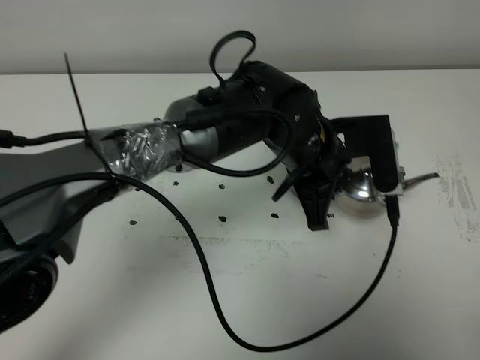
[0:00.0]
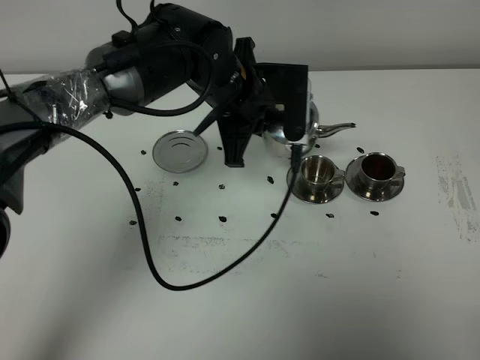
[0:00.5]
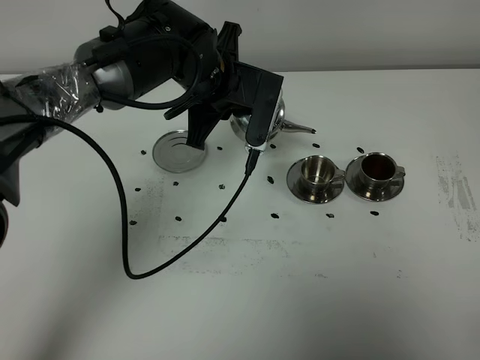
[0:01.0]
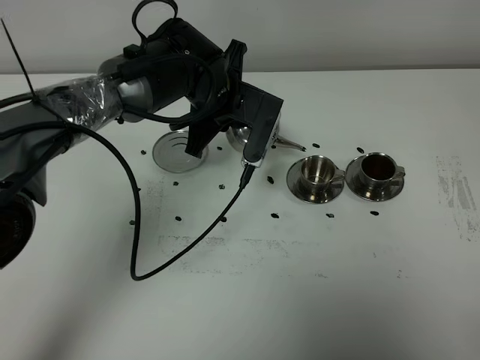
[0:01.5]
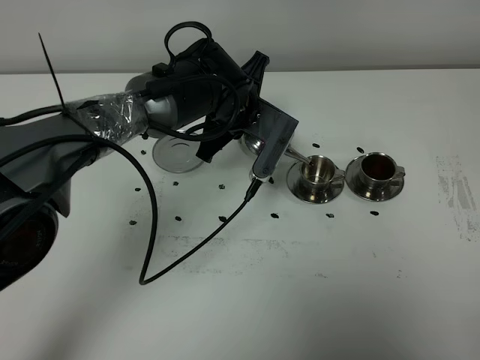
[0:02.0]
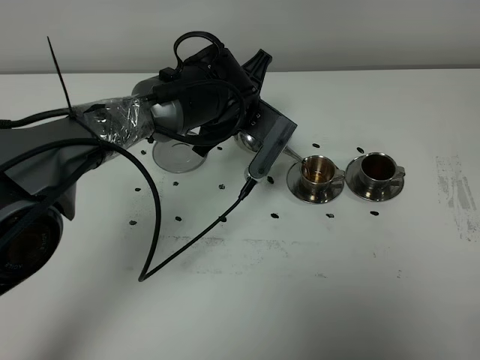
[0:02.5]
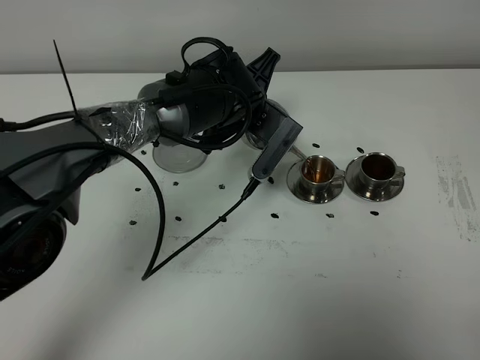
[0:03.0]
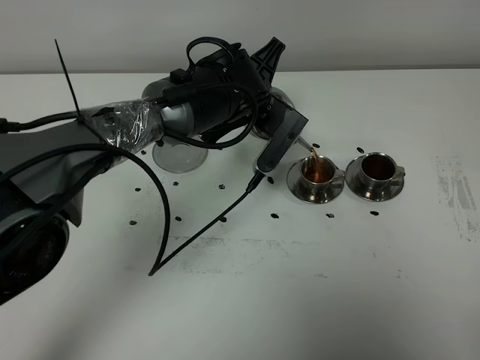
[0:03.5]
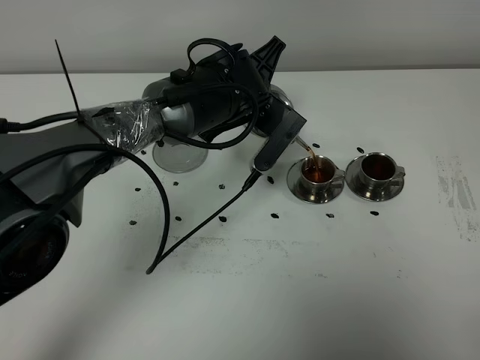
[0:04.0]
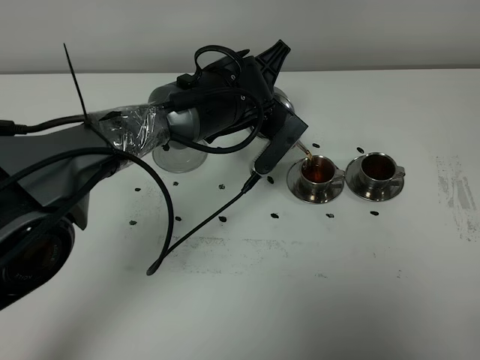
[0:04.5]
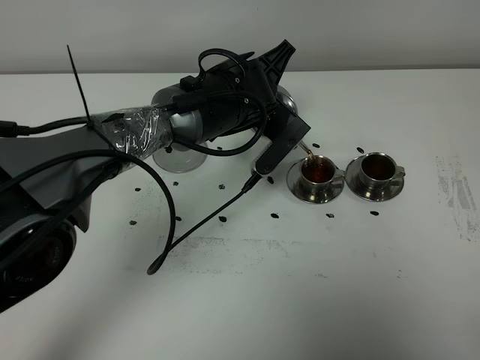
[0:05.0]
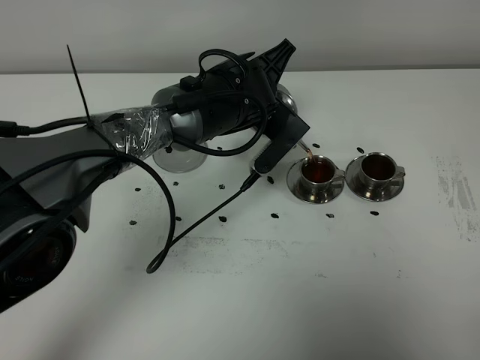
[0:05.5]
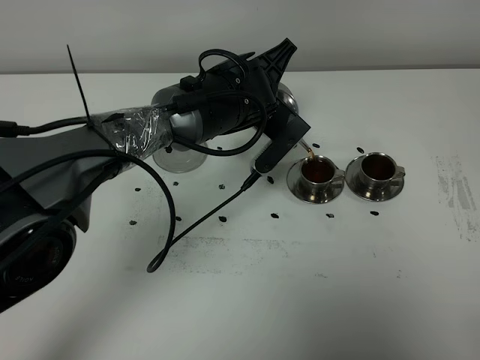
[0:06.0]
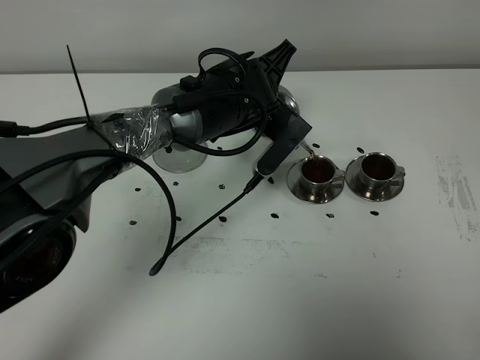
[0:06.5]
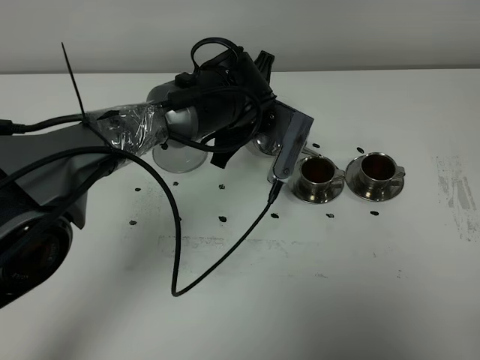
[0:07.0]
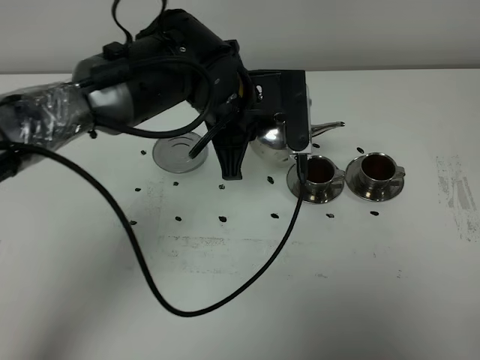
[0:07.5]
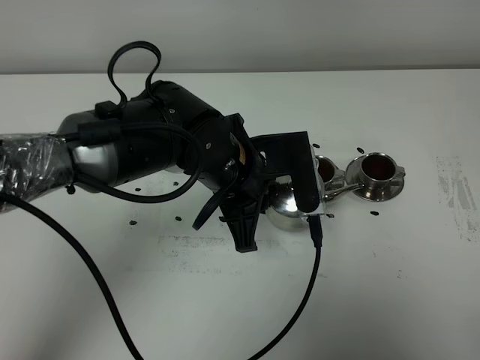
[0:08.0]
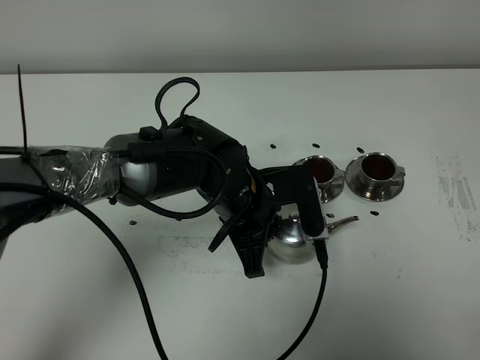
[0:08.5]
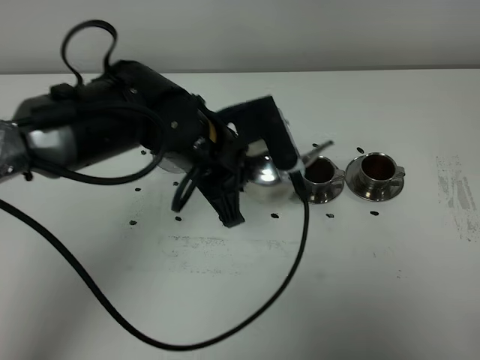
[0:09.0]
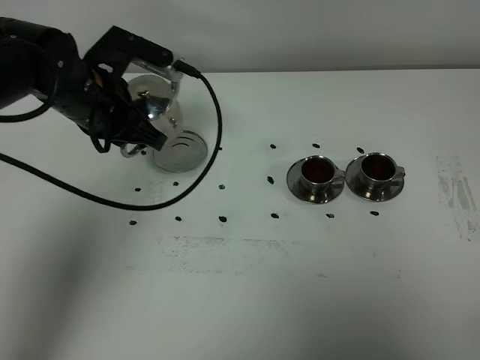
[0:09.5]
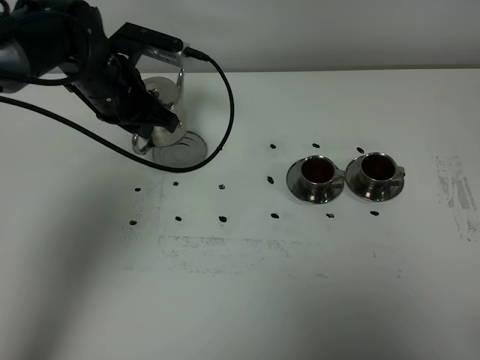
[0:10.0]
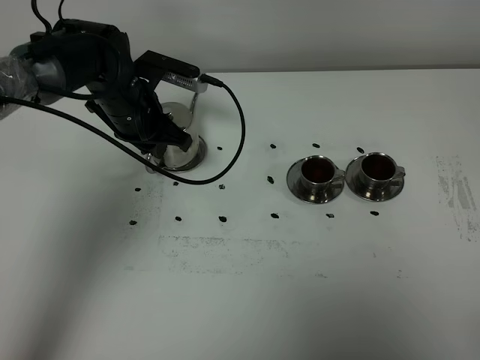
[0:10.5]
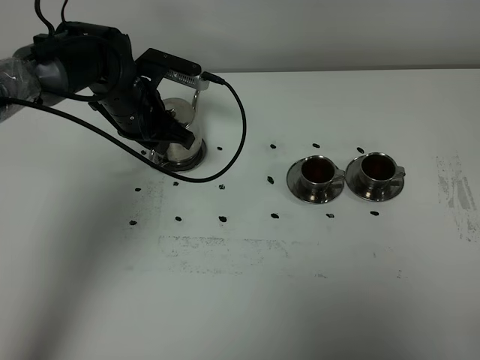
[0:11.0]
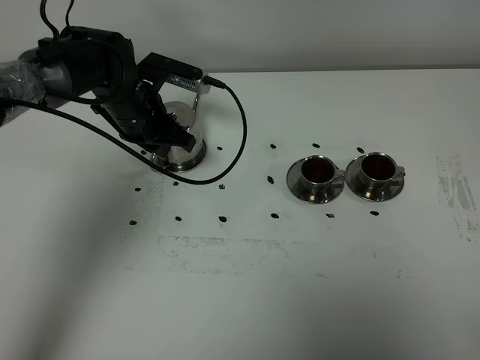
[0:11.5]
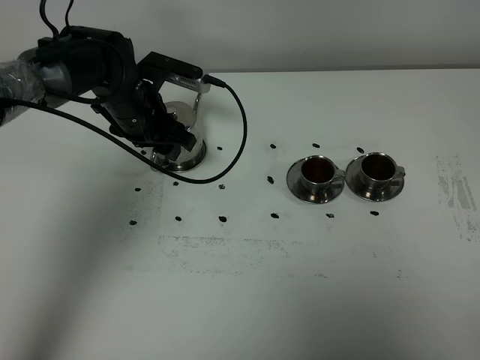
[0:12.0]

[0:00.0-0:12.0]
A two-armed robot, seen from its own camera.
Task of the whole recording: grasp the stainless steel teapot and pour the tea into the two stainless steel teacups one by one, put the stainless steel teapot back in its original place.
Step, 0:00.0 to 0:07.0: Pour tea into the teacup with the left gripper.
0:00.0 to 0:02.0: The left gripper is displaced forward and to the left by some 10 cm.
0:02.0 to 0:06.0: The grippers move only a little.
0:06.0 to 0:08.0: The left gripper moves backward, approximately 10 cm.
0:08.0 to 0:10.0: The left gripper heads to the left and forward, covering approximately 20 cm.
0:10.0 to 0:12.0: The left gripper moves approximately 5 cm, and opens up.

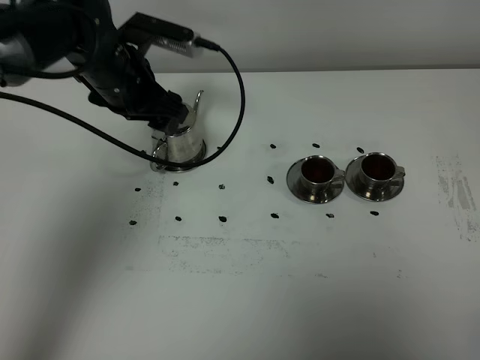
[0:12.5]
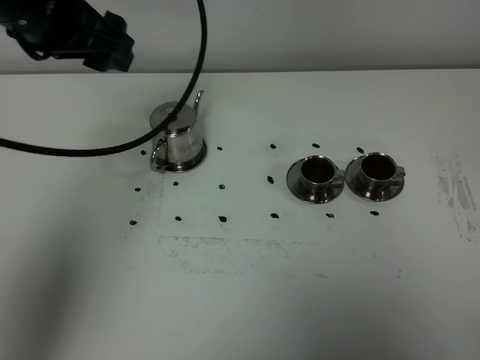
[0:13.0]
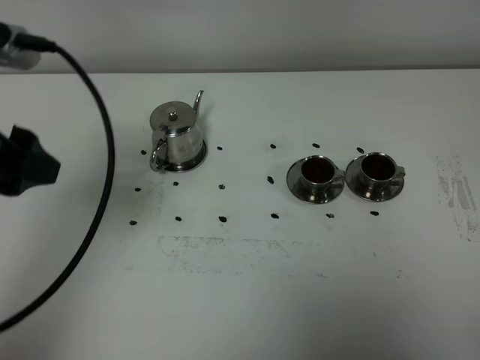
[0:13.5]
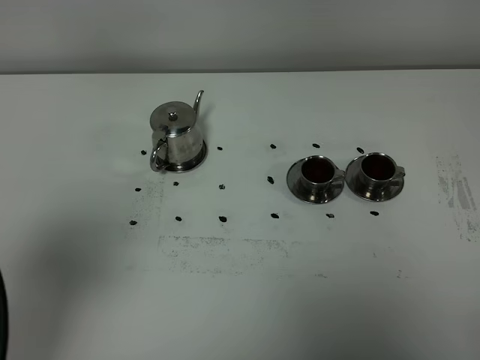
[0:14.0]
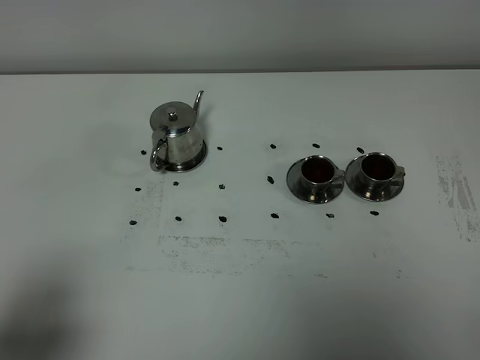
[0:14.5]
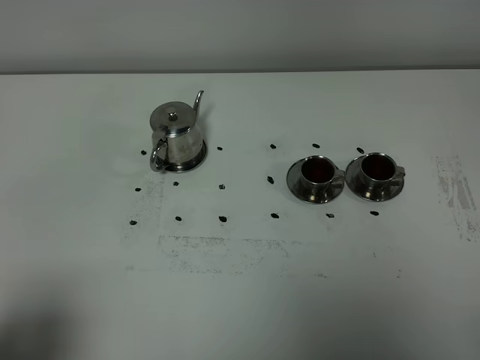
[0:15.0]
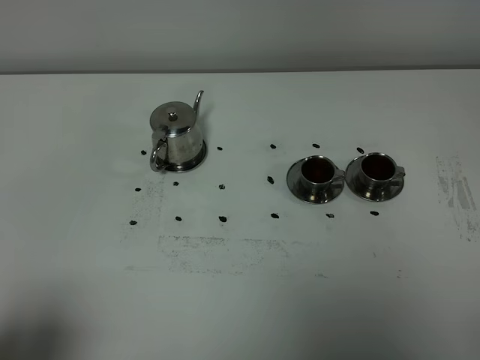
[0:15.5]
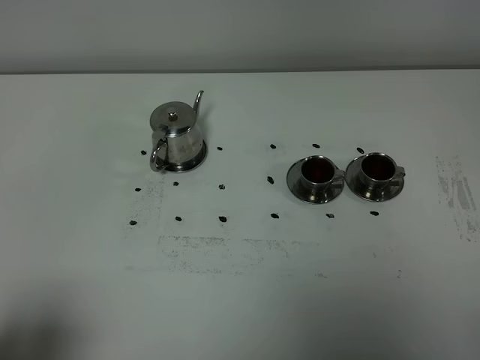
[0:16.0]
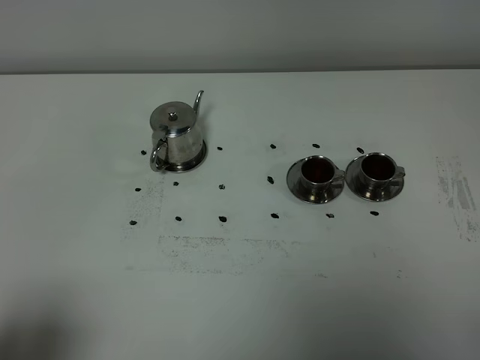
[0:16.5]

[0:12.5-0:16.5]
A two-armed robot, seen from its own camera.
Task of the whole recording: grasp the stainless steel teapot and pour the tea into the two stainless steel teacups one by one, put the stainless steel teapot back in its original place.
0:12.5 to 0:14.5: The left gripper is displaced backward by some 40 cm.

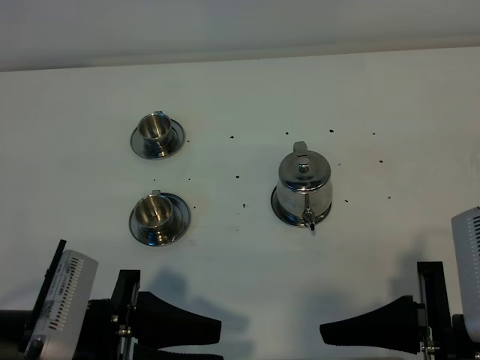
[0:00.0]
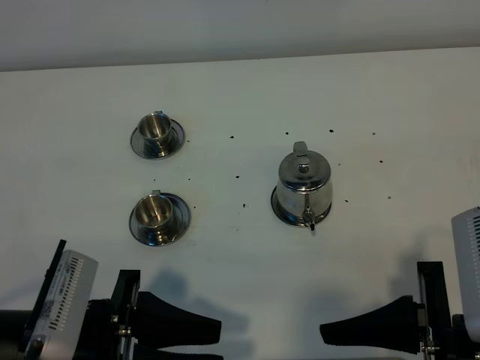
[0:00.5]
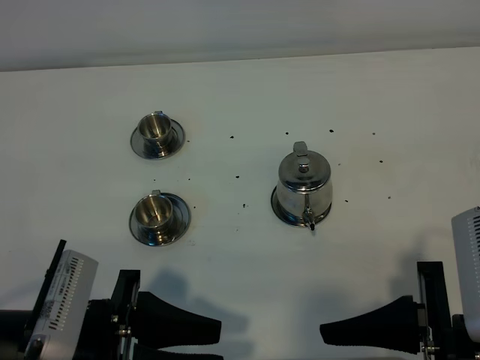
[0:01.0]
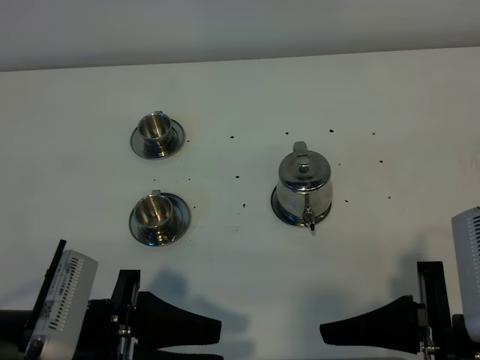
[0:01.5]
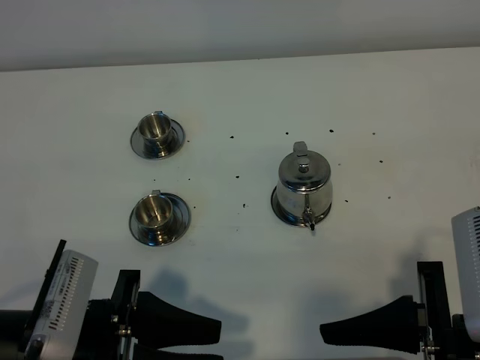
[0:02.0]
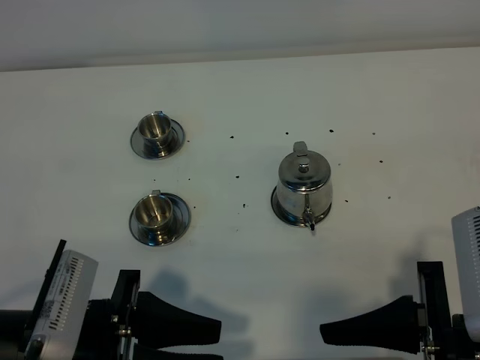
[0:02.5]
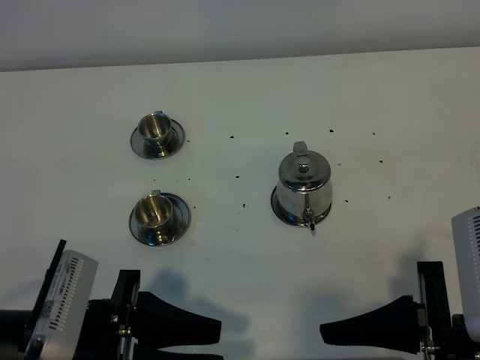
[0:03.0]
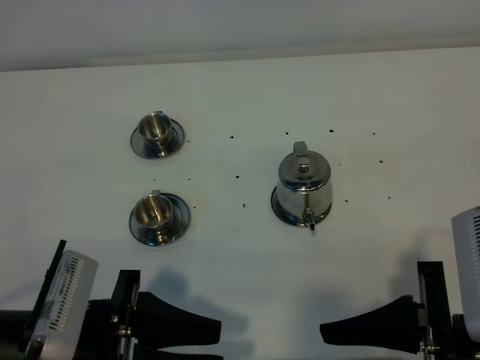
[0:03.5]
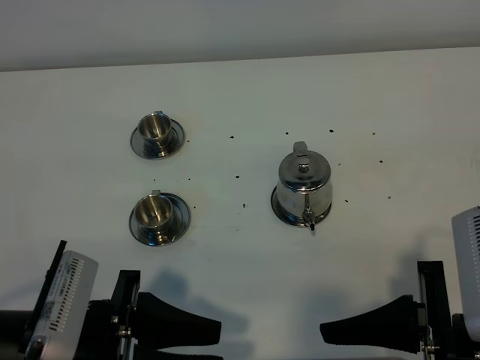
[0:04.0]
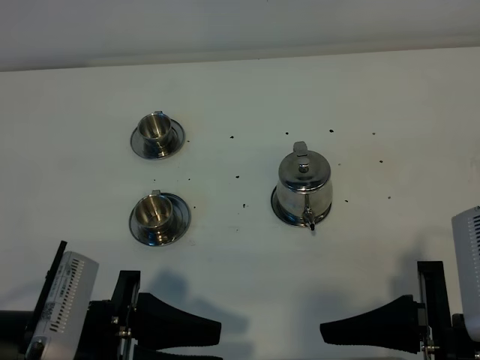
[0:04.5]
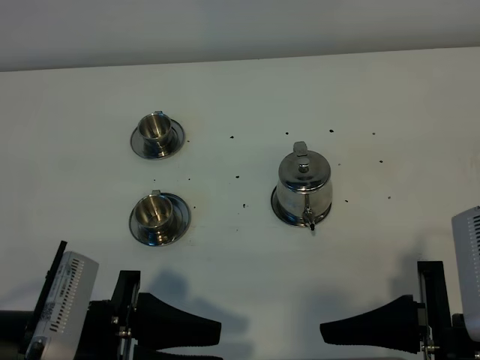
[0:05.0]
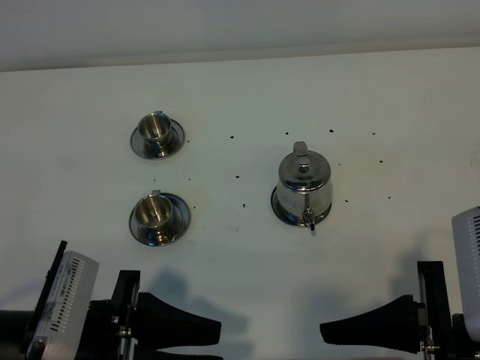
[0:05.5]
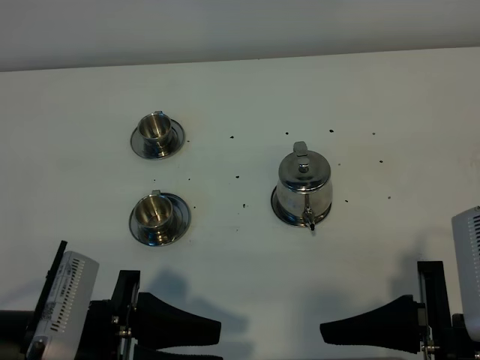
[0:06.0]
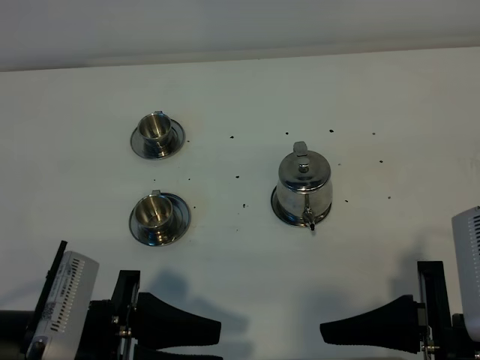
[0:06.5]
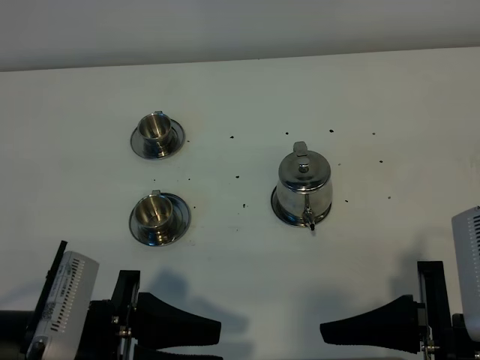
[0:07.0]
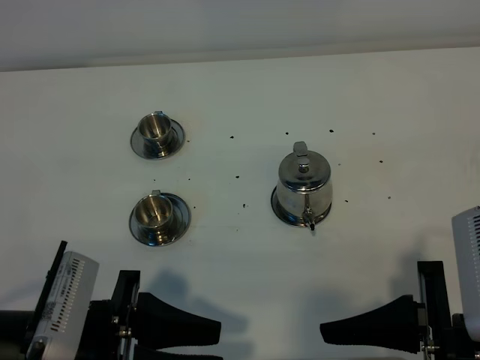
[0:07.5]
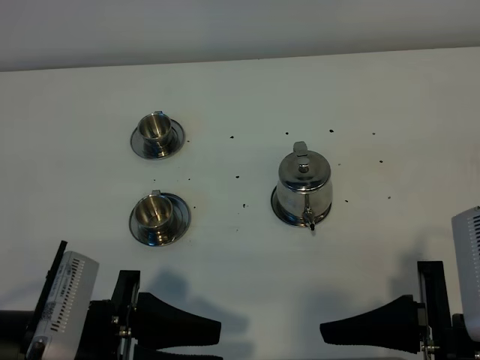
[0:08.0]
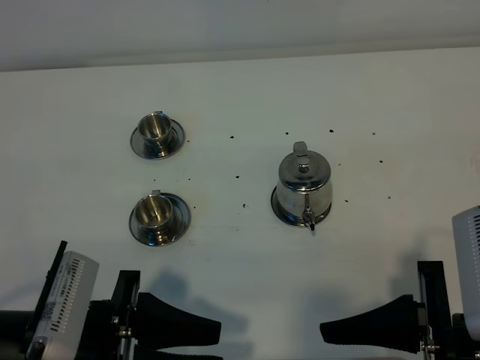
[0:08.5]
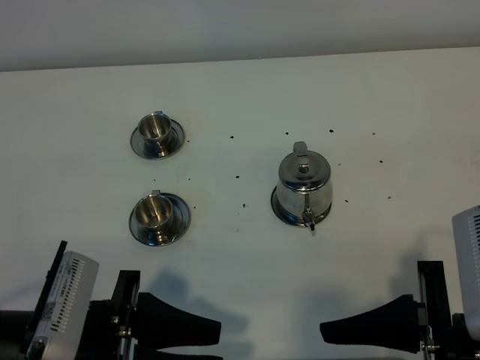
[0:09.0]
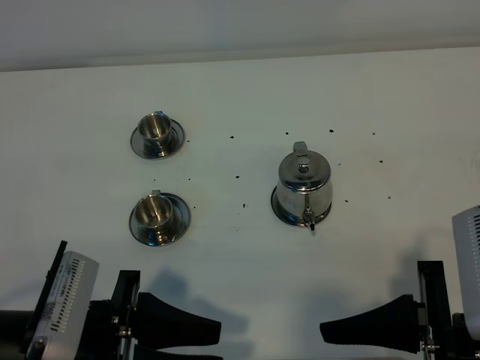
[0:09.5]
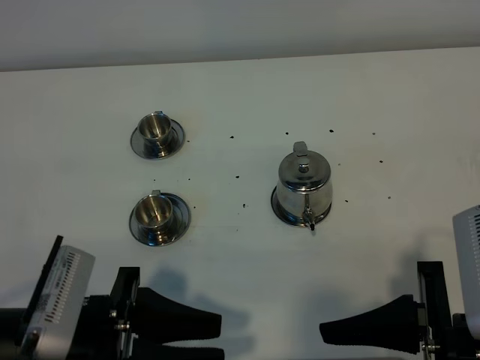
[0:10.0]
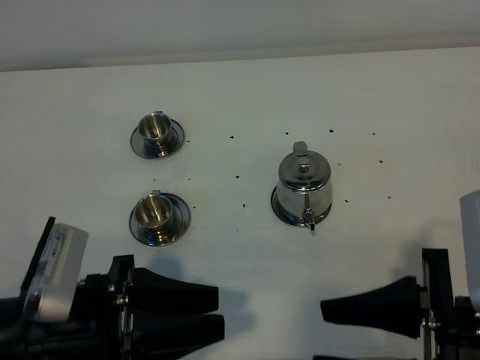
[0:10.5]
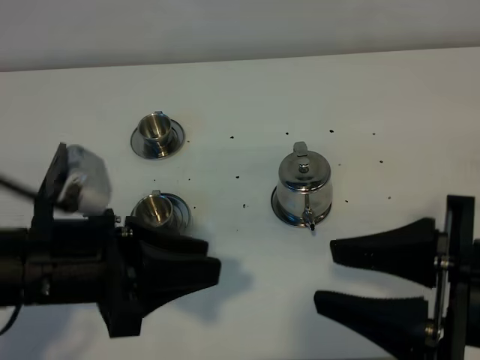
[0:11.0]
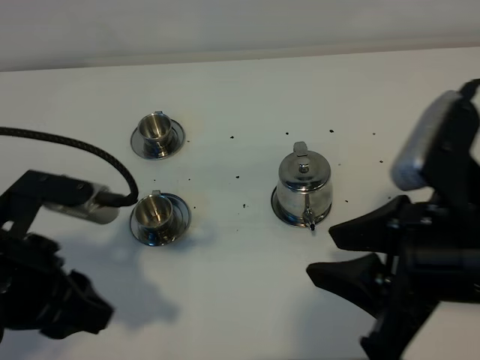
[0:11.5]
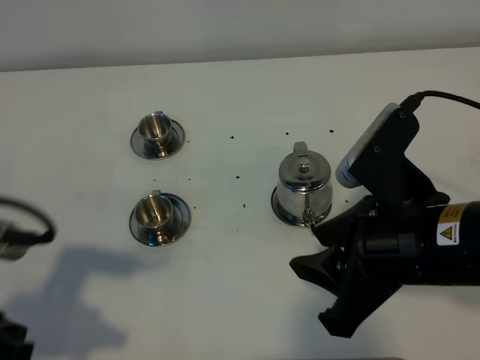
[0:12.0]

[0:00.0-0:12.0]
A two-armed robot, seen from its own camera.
Task of the whole recording: grasp the stainless steel teapot and pour the tea into the two stainless steel teacups one by one, put the stainless steel teapot back in its original place.
0:00.0 to 0:10.0: Neither gripper changes place.
0:10.0 to 0:12.0: The right gripper shifts roughly 10 cm forward. The left gripper goes about 10 cm to the left and upward.
